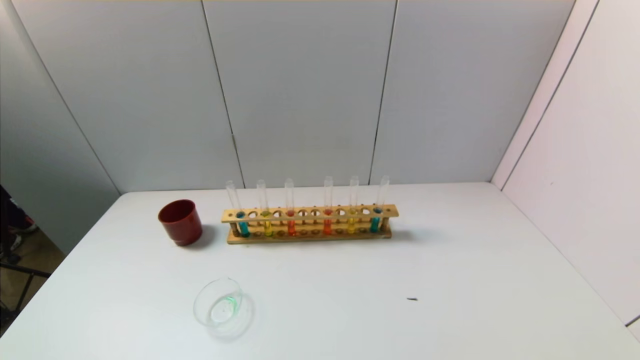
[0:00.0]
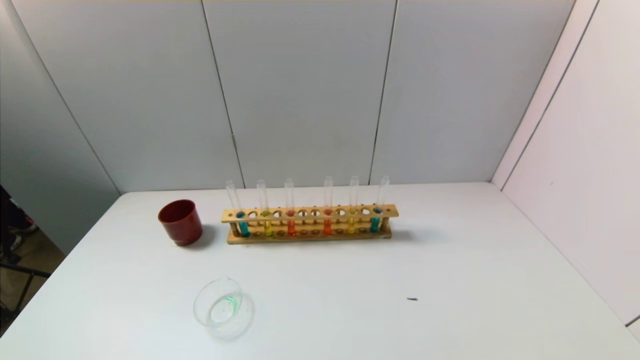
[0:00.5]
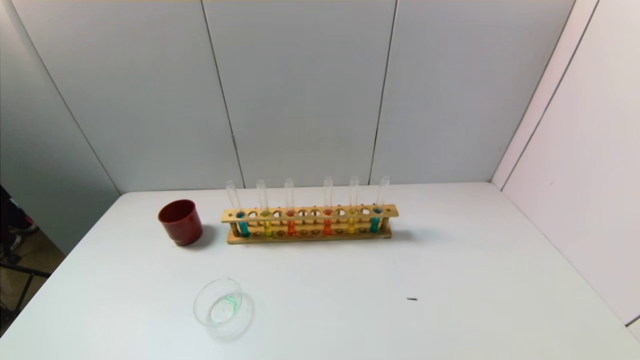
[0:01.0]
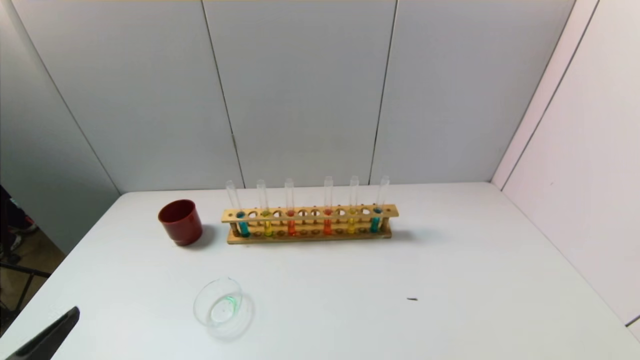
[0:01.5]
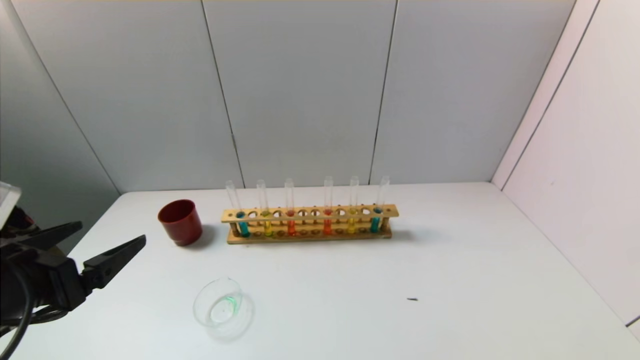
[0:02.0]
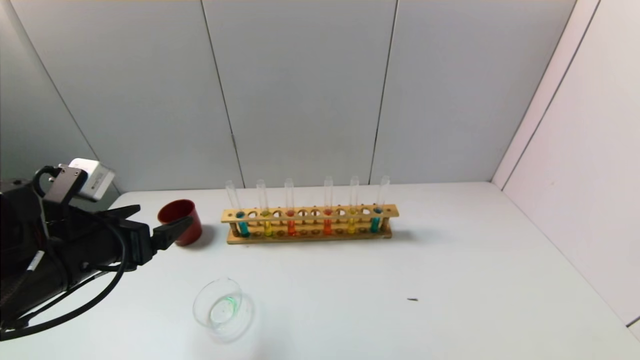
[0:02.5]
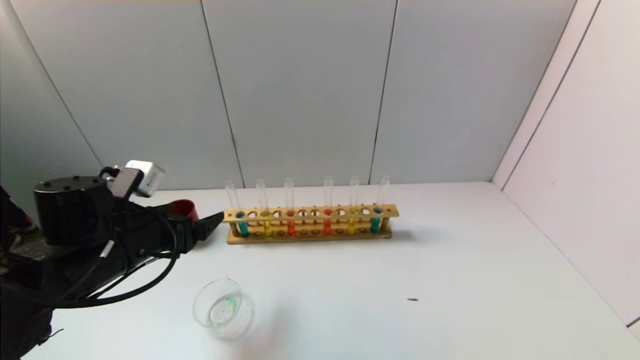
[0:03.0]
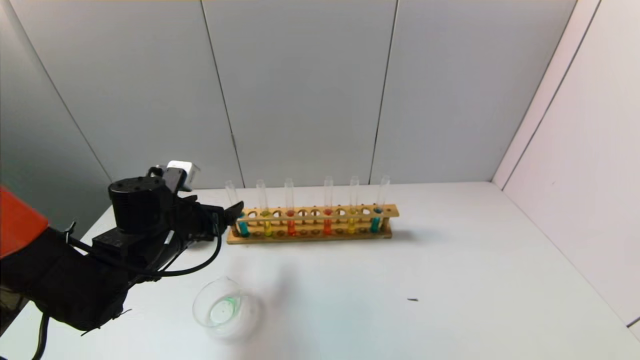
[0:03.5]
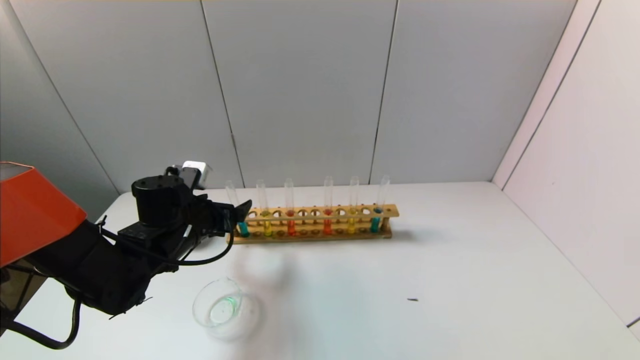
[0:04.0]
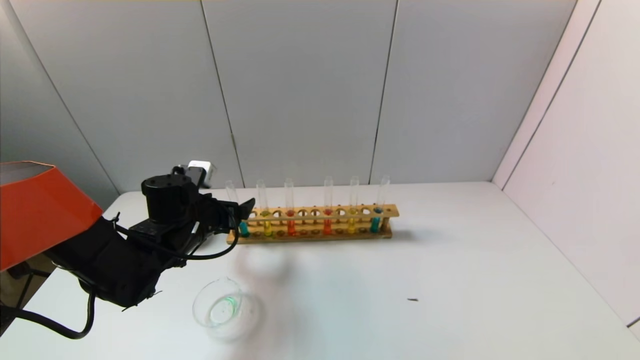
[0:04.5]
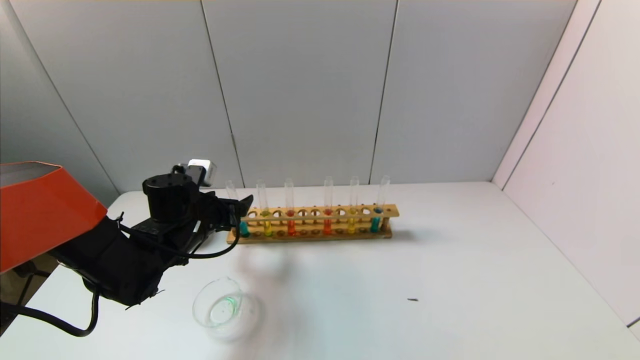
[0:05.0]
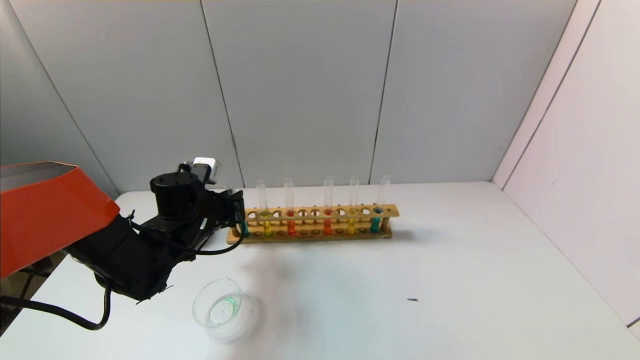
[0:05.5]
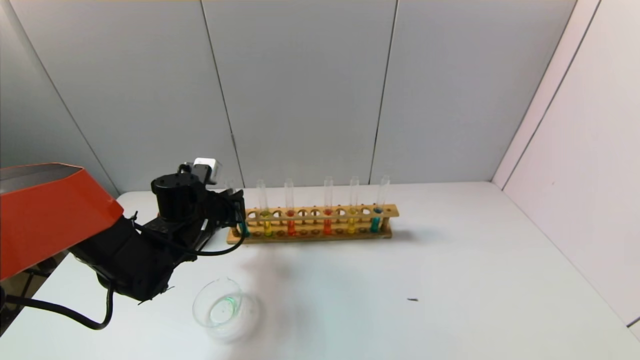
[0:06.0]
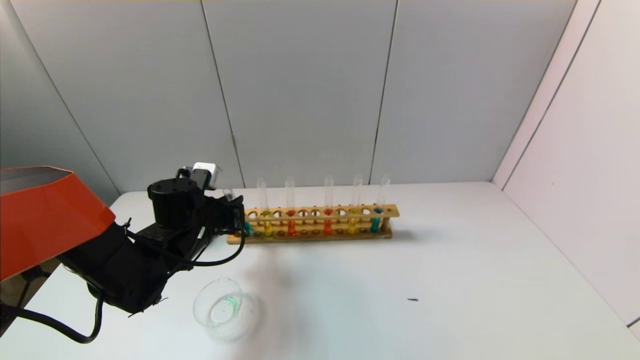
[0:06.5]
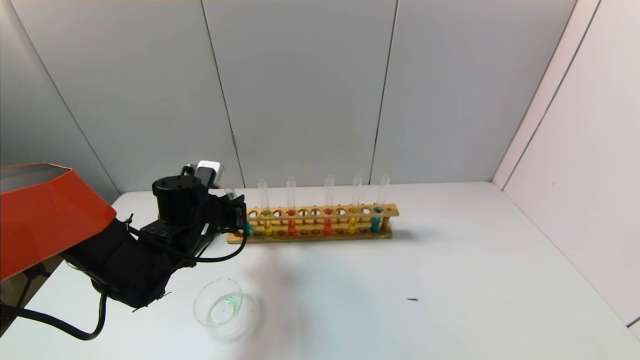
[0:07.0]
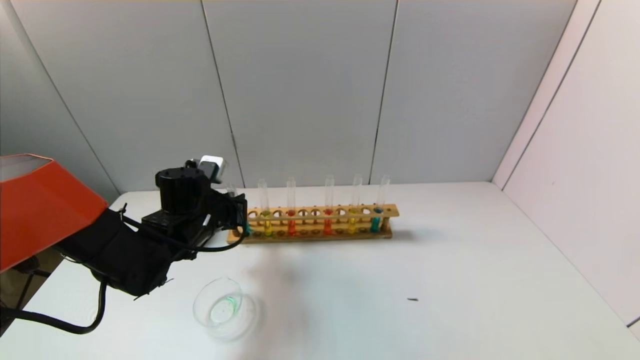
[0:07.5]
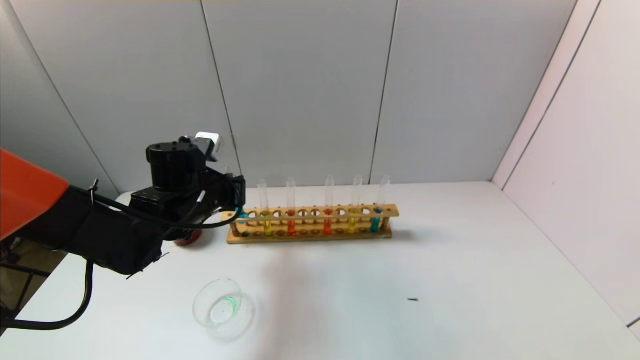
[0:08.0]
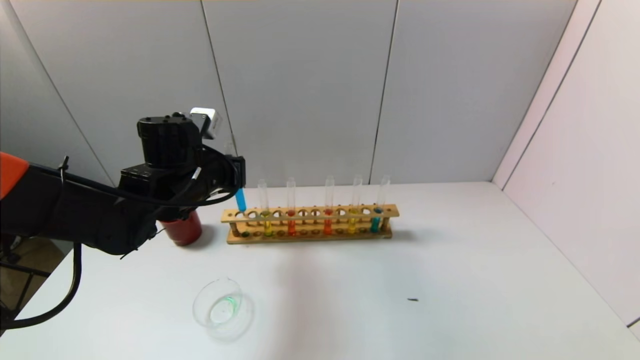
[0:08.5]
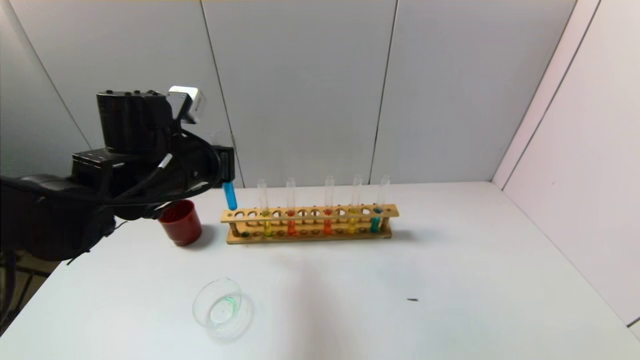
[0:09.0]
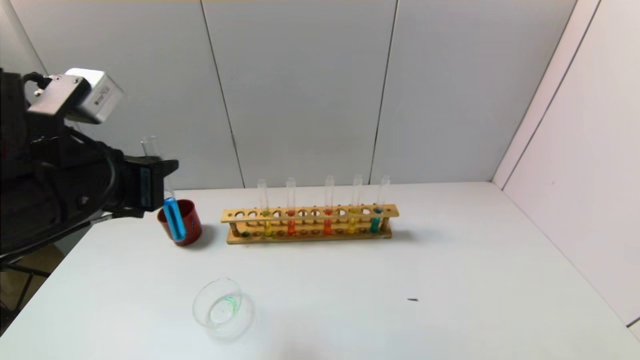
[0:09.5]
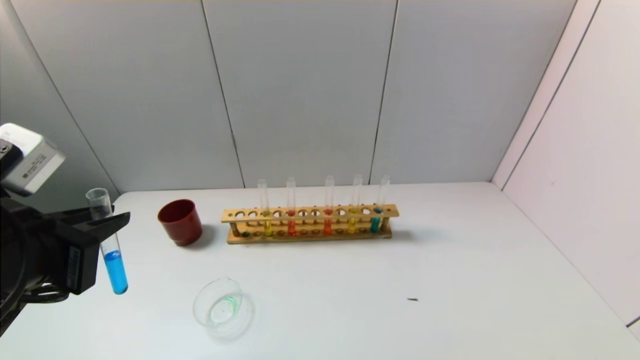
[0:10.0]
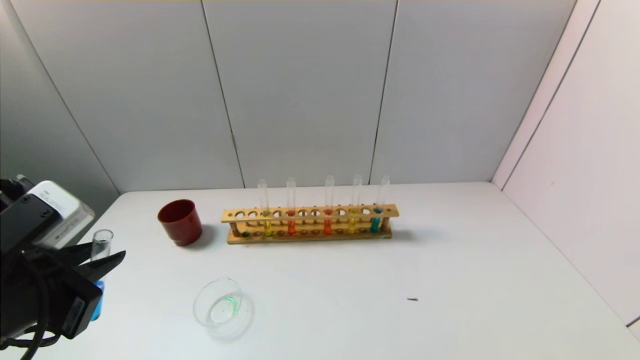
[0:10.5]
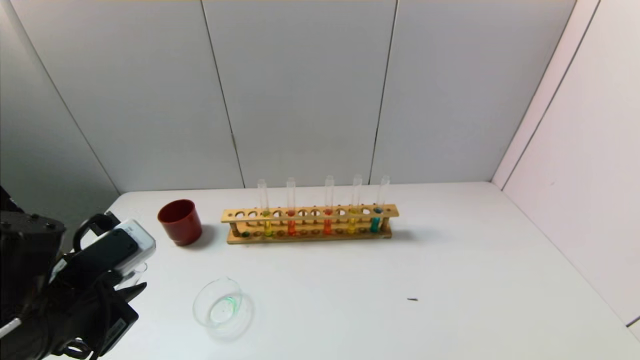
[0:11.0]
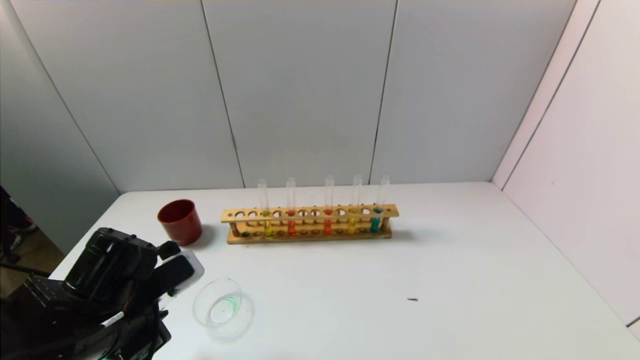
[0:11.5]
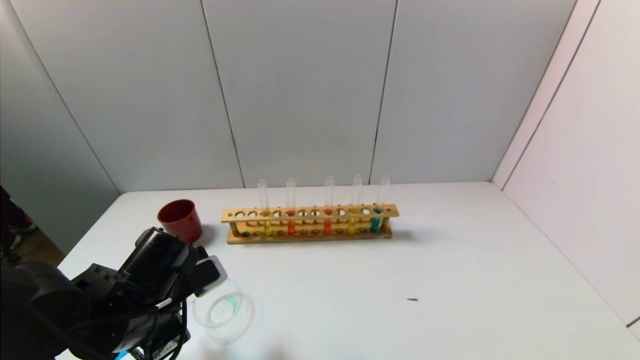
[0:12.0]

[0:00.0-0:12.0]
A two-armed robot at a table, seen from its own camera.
Task of the whole recording: pick up the test tube with yellow pigment and the test tube with blue pigment by grippers and pour them into the beaker.
Step, 0:00.0 to 0:06.0: Grasp the blue reagent with the left gripper.
0:00.0 to 0:02.0: The left gripper shifts some 20 cm forward and upward.
0:02.0 to 0:04.0: The left gripper is displaced forward, downward and to the right by about 20 cm.
0:04.0 to 0:06.0: The left gripper closes its fingers.
0:06.0 to 0:08.0: The left gripper goes roughly 5 cm upward.
0:08.0 to 0:10.0: The left gripper heads backward and upward, covering approximately 25 cm.
0:10.0 to 0:12.0: The left gripper is displaced downward and forward by approximately 15 cm.

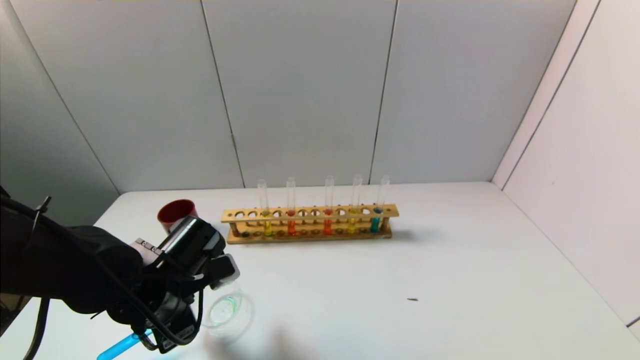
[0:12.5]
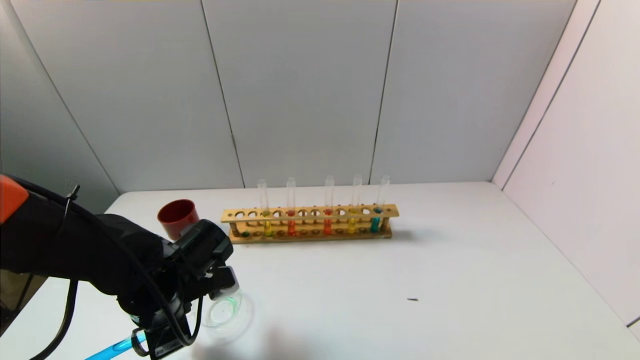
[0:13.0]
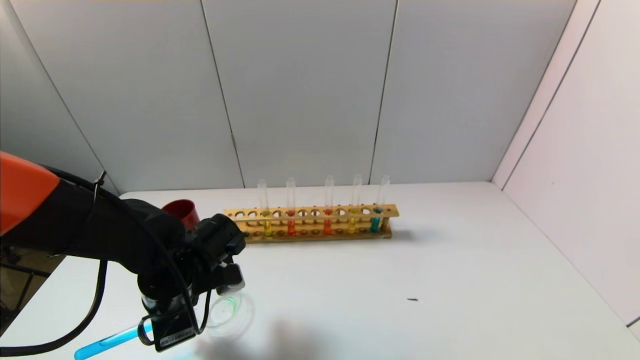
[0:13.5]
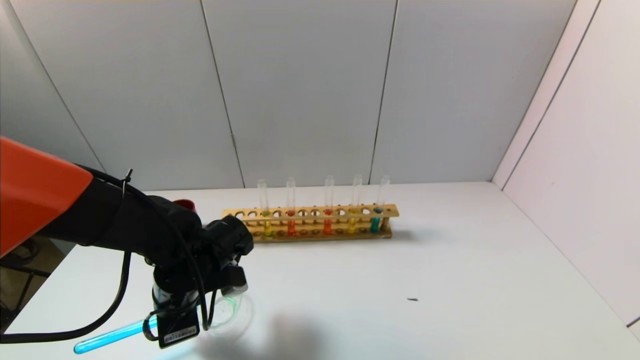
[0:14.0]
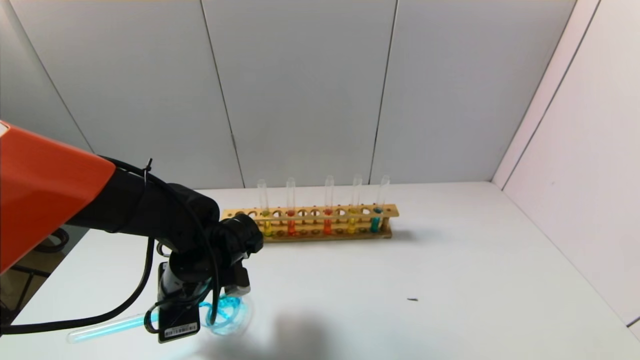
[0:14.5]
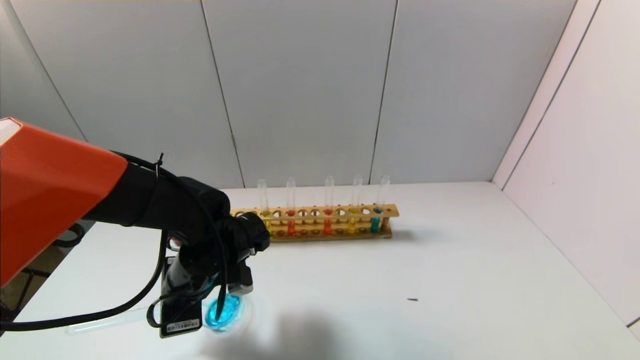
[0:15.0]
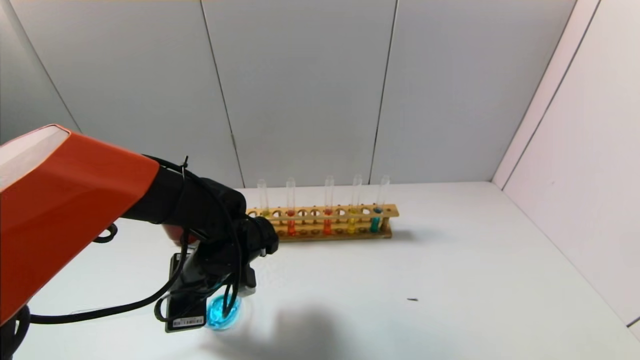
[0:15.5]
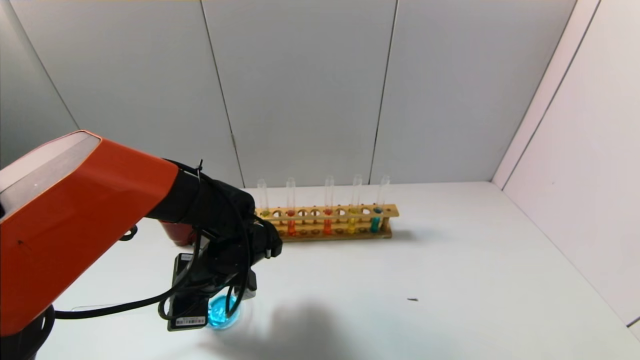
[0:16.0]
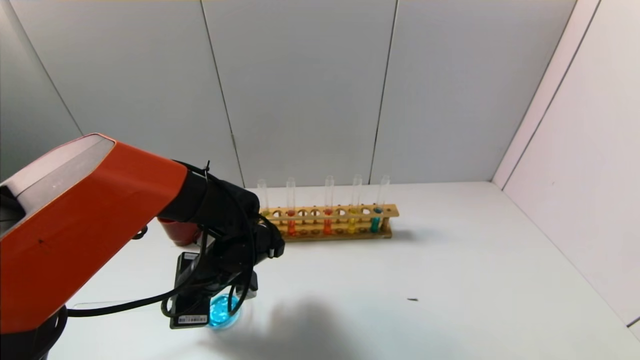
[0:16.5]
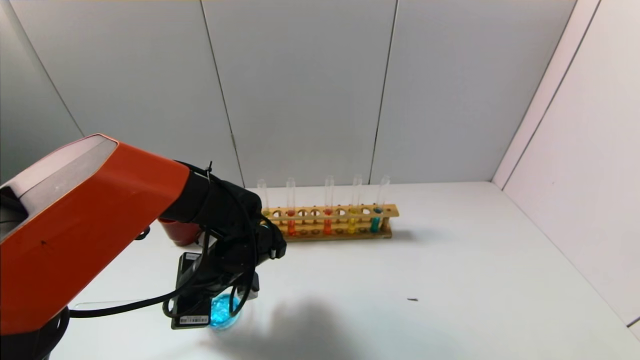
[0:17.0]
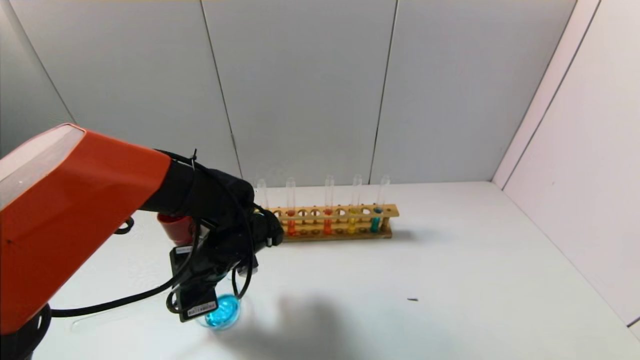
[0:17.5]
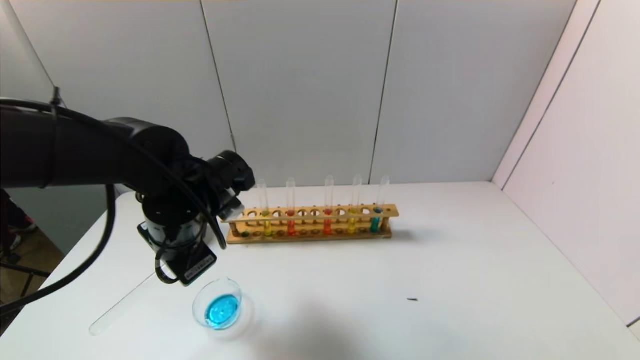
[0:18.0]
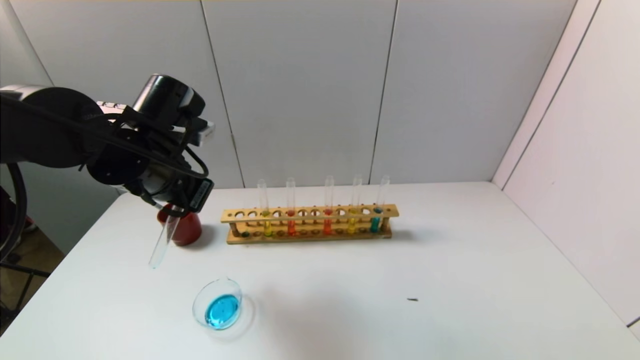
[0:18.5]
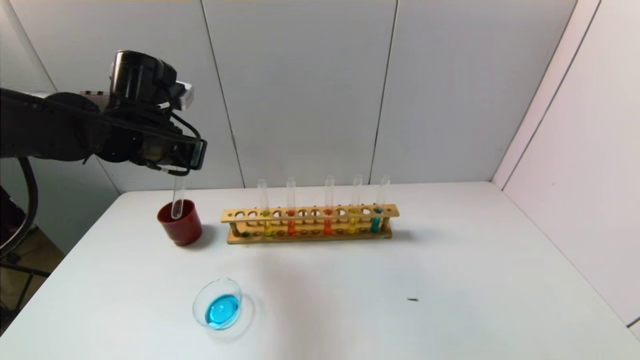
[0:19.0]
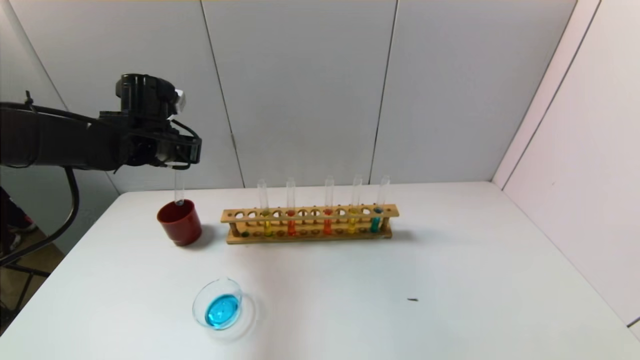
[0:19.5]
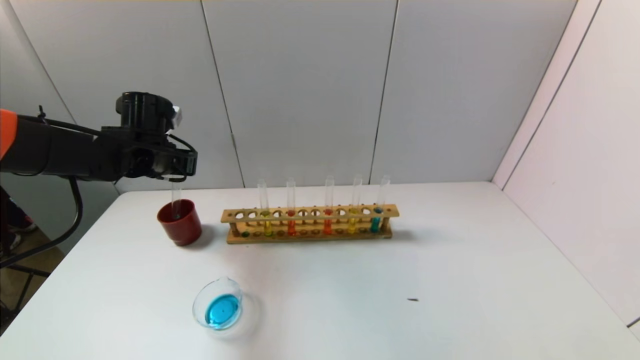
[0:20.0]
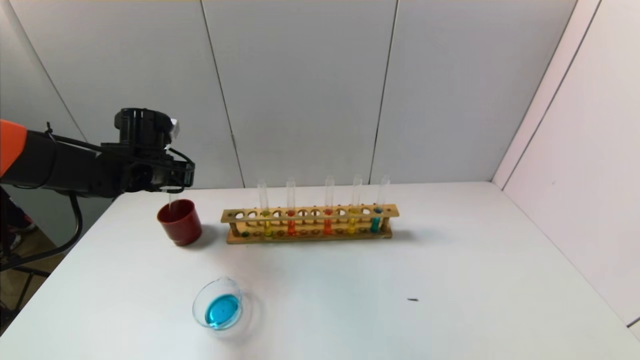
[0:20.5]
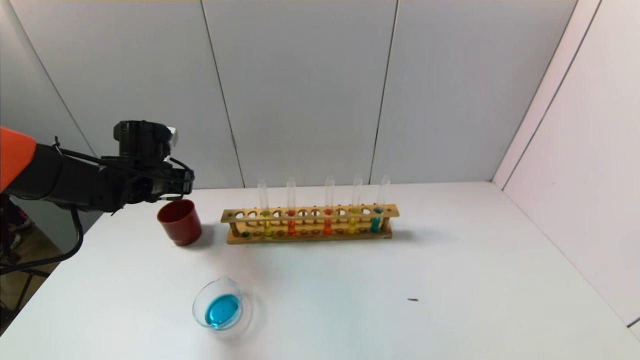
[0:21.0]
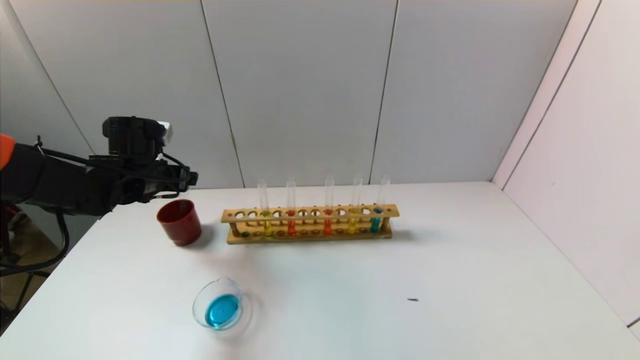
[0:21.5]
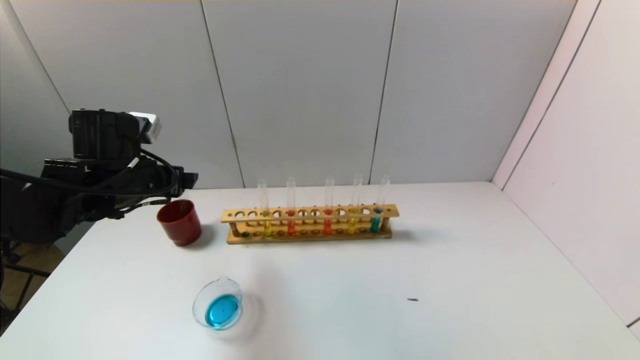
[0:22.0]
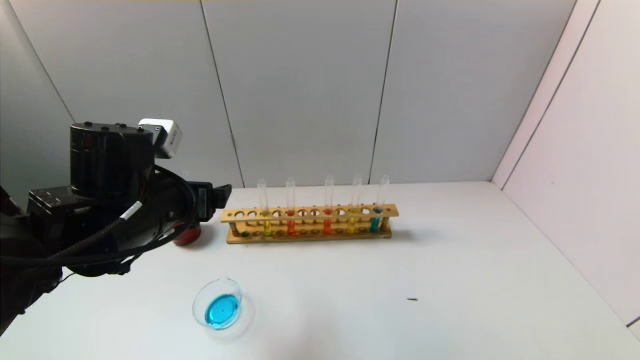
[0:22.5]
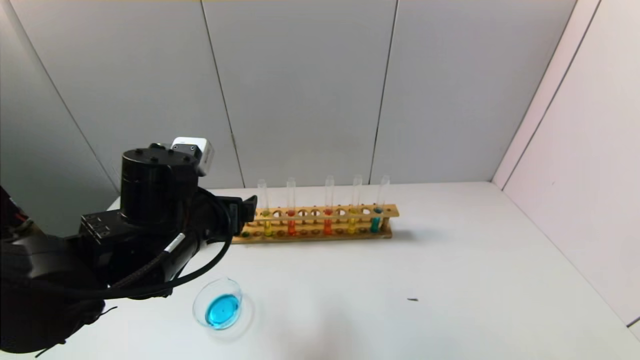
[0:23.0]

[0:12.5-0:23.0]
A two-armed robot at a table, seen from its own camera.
Task of the whole recording: pick up the test tube with yellow pigment and the test tube with blue pigment by grippers and pour them into the beaker.
Step, 0:12.5 to 0:17.5: Pour the blue reagent into the graduated cylinder with the left gripper.
Step, 0:18.0 to 0:21.0: Place the test tube into the brown cup with the left gripper.
0:14.5 to 0:16.5: The grippers stay close to where they were, moving slightly.
0:16.5 to 0:19.0: The left gripper moves upward and to the left, approximately 20 cm.
0:19.0 to 0:21.0: The left gripper travels downward, to the left and forward by approximately 10 cm.
0:21.0 to 0:23.0: The left gripper heads backward and to the right, covering roughly 20 cm, and opens its fingers.
